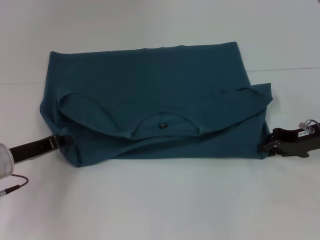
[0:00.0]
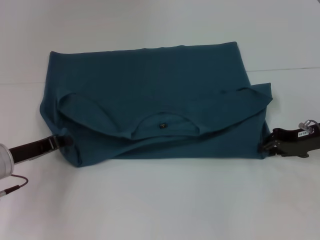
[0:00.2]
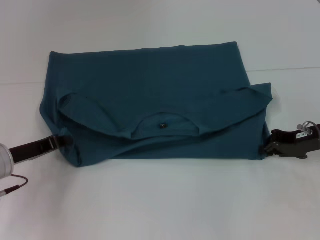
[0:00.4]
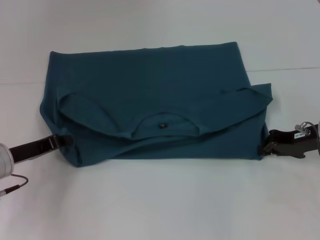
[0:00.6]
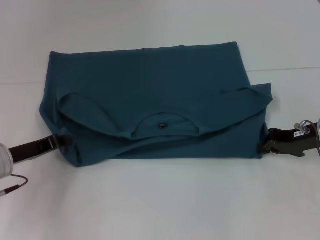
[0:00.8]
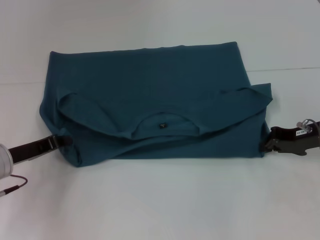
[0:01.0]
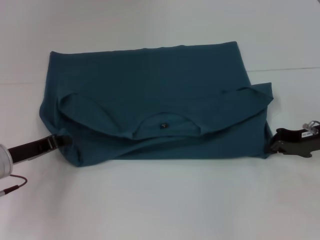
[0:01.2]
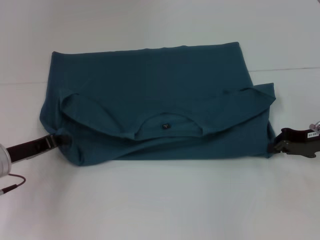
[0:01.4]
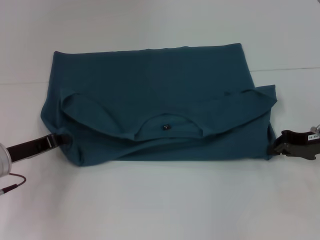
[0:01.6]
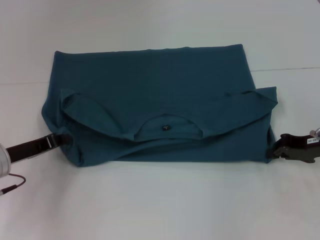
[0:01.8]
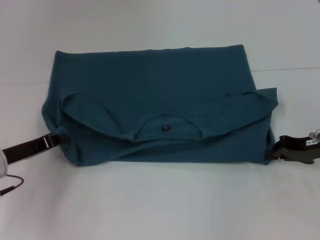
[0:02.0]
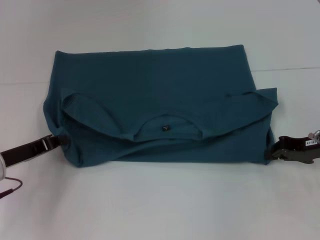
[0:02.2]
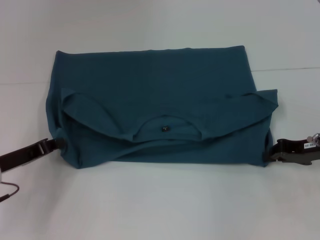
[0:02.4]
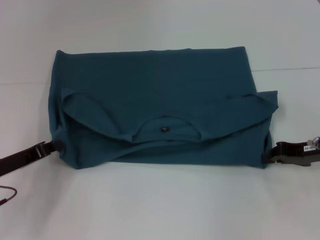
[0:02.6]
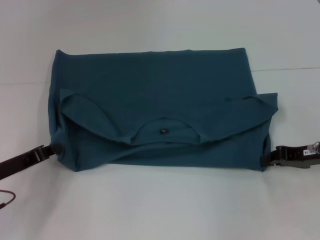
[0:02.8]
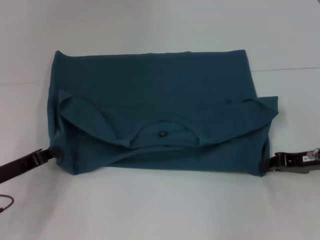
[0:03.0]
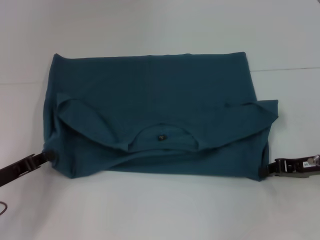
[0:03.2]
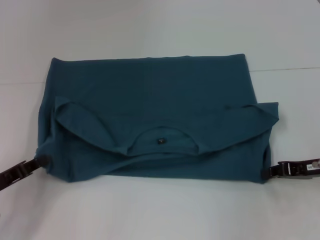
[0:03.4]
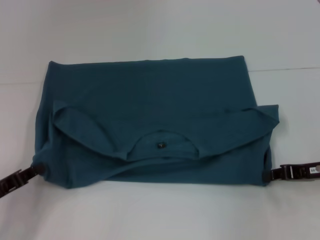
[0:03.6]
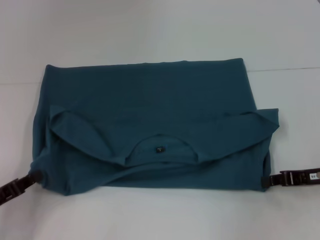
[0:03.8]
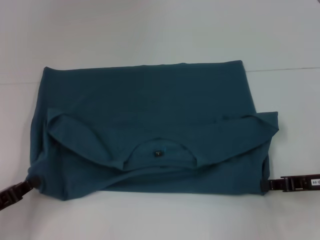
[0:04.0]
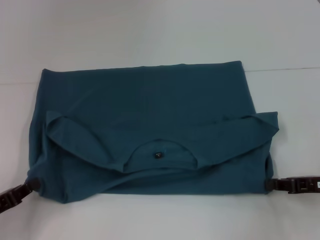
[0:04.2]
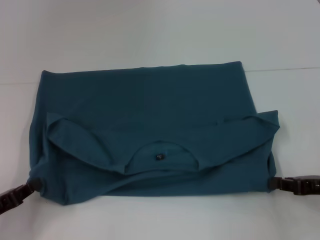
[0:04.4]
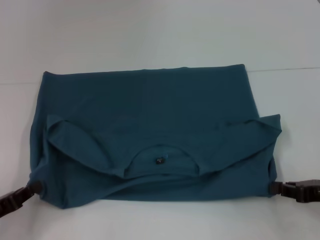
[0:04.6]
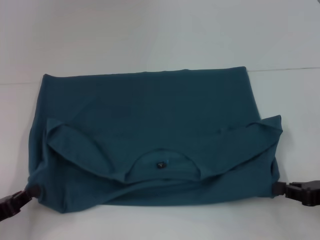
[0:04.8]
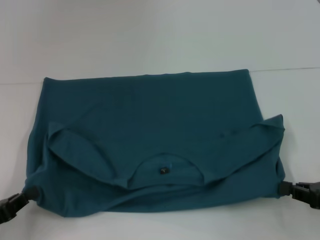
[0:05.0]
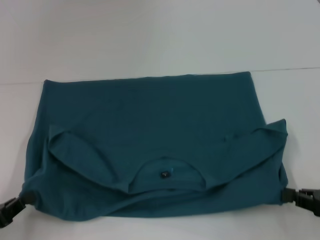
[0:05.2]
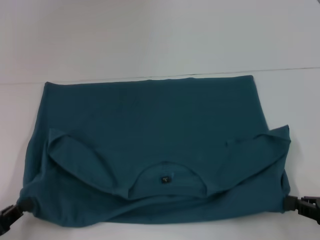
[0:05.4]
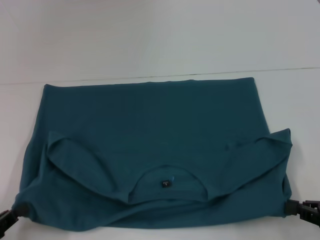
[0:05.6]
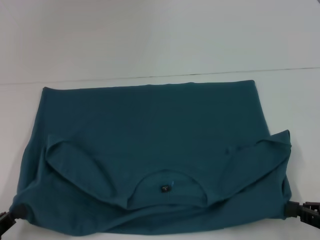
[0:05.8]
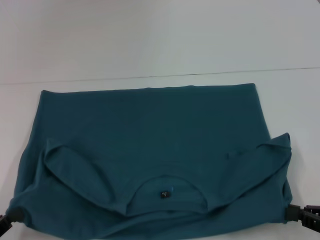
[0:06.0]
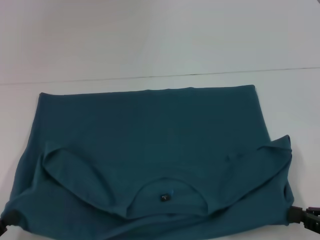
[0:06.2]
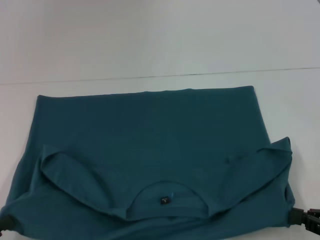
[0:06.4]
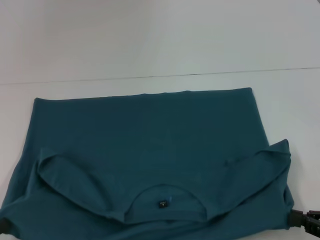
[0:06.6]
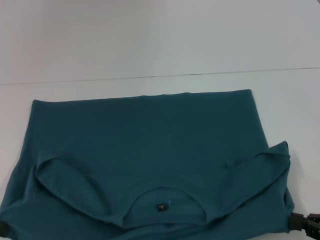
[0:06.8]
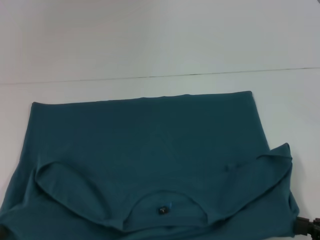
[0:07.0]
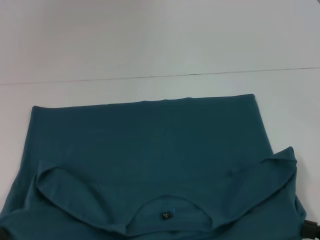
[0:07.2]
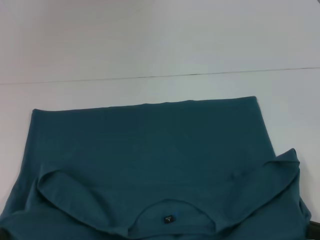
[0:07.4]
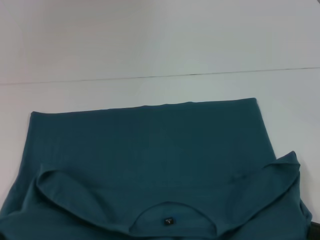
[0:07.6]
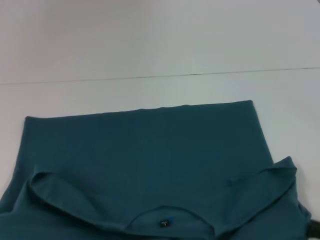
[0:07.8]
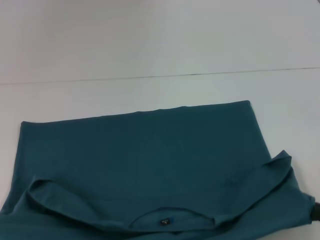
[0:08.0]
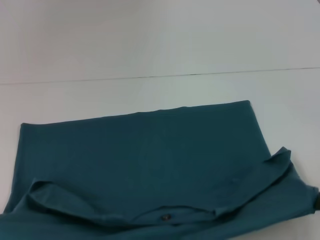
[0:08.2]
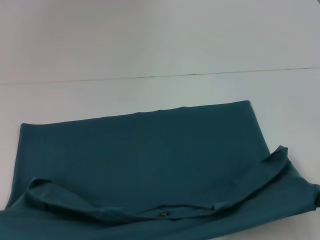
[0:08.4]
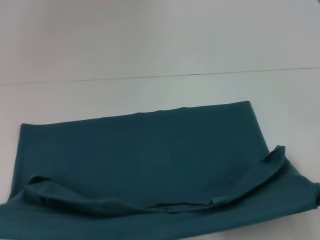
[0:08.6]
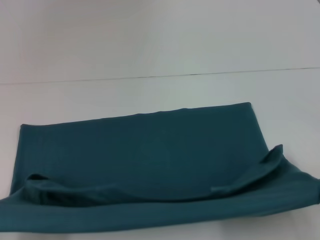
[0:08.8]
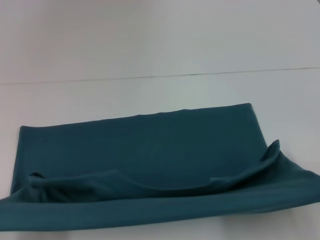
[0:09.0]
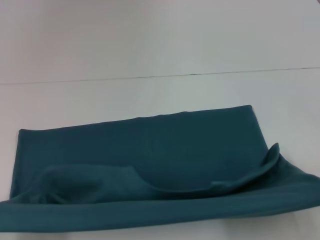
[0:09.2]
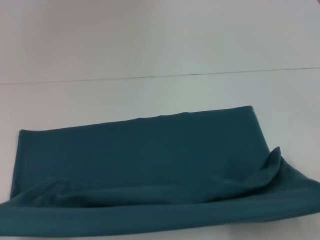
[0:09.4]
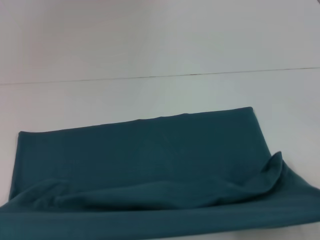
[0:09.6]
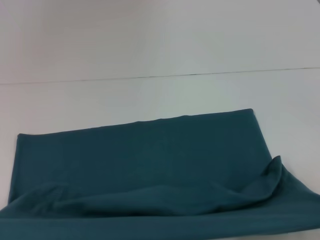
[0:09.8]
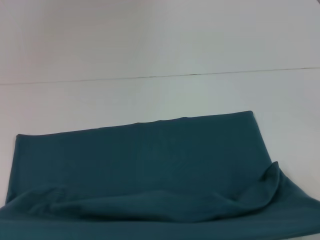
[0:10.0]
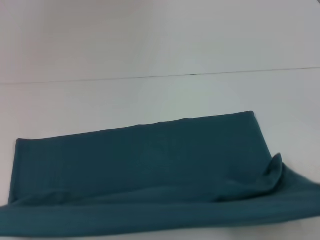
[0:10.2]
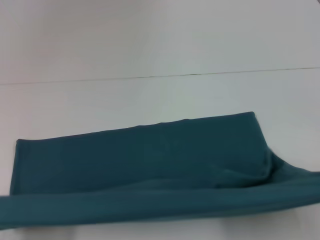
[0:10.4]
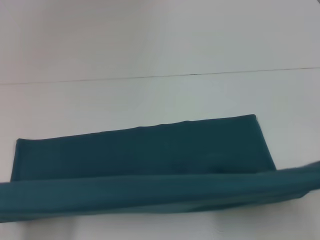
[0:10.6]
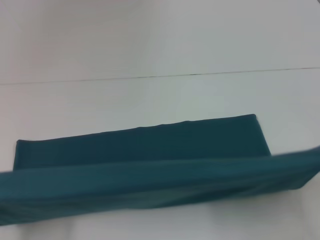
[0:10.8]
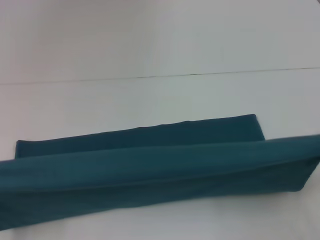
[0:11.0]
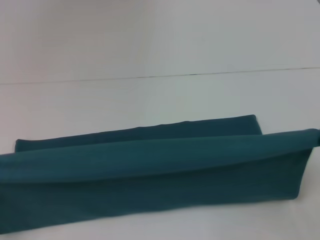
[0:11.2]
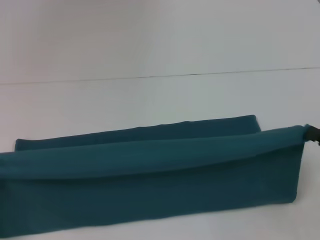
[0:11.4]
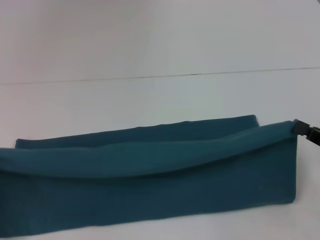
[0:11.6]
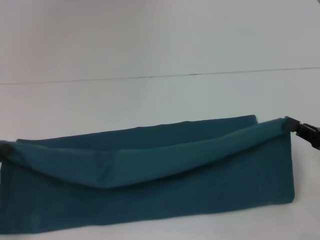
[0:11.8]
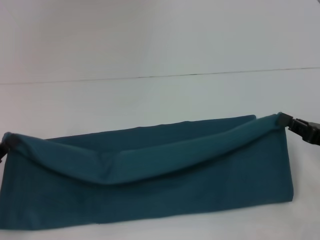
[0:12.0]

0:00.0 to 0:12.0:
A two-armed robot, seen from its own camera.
Step, 0:00.0 to 0:07.8: Pull the clothes with your left hand.
Step, 0:00.0 to 0:07.8: Pull the clothes with your right hand.
0:00.0 to 0:03.0: The grippers stay close to where they were, moving slightly.
0:03.0 to 0:04.4: Both grippers travel together backward, some 5 cm.
0:04.4 to 0:06.0: Both grippers move backward, approximately 5 cm.
0:06.0 to 0:07.6: The left gripper ends up roughly 5 cm from where it was.
0:07.6 to 0:10.4: The grippers move only a little.
0:10.4 to 0:12.0: The two grippers go some 15 cm forward.

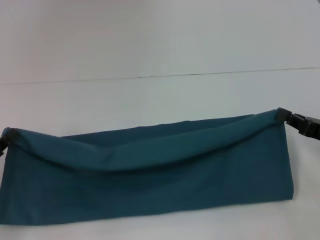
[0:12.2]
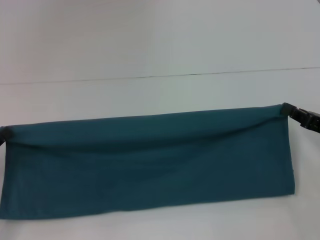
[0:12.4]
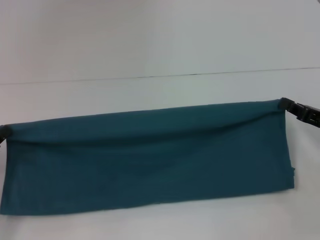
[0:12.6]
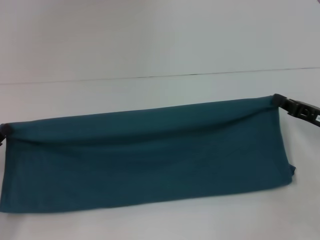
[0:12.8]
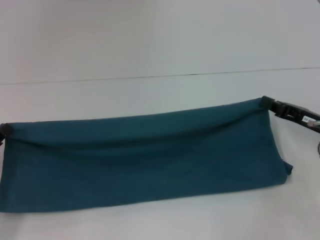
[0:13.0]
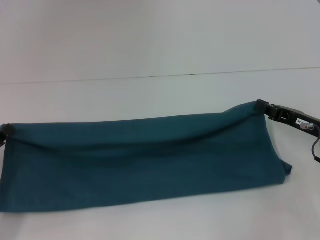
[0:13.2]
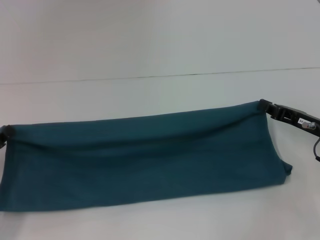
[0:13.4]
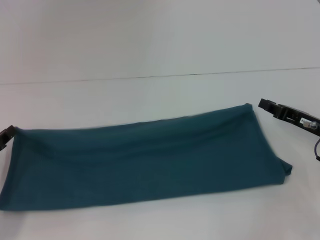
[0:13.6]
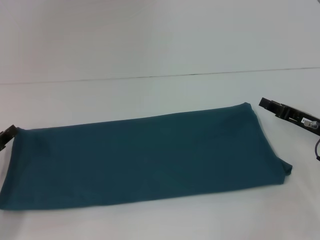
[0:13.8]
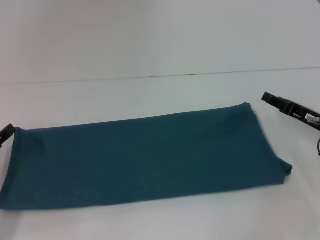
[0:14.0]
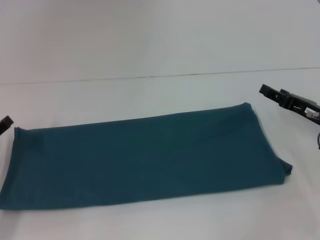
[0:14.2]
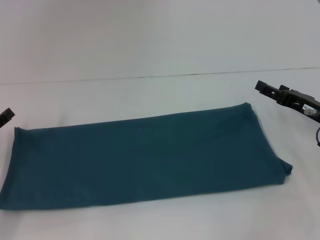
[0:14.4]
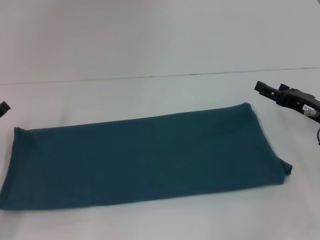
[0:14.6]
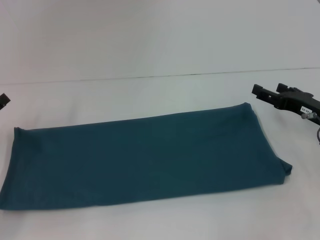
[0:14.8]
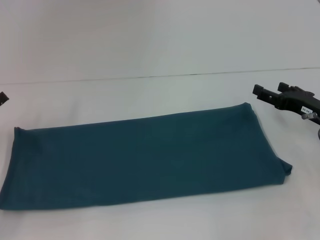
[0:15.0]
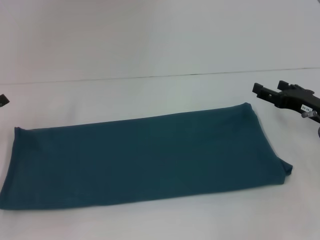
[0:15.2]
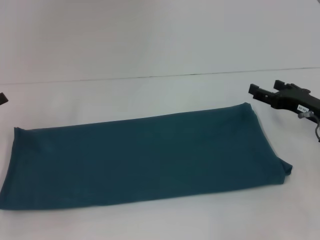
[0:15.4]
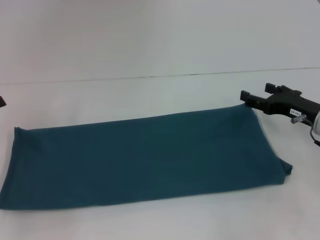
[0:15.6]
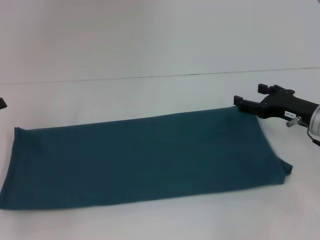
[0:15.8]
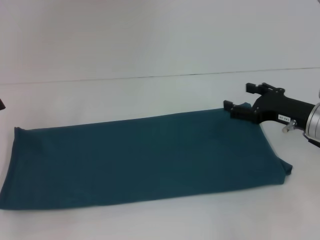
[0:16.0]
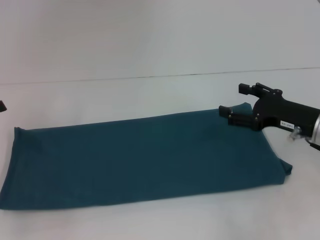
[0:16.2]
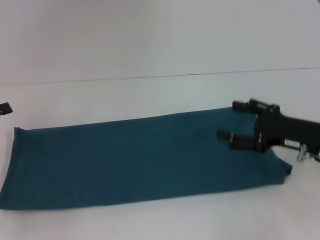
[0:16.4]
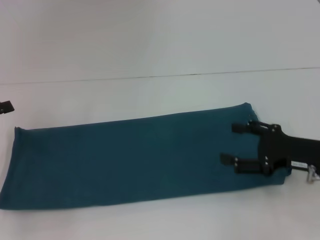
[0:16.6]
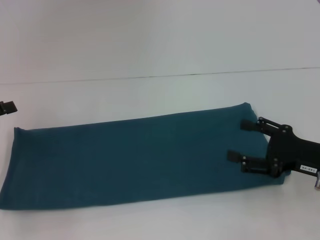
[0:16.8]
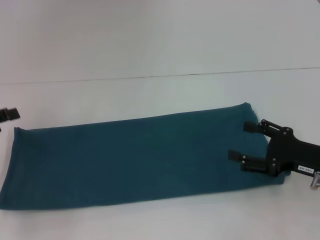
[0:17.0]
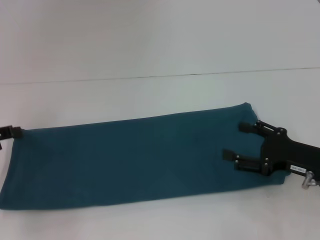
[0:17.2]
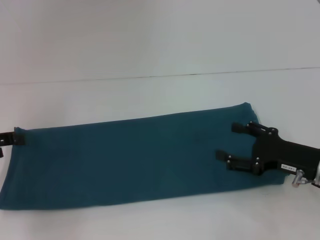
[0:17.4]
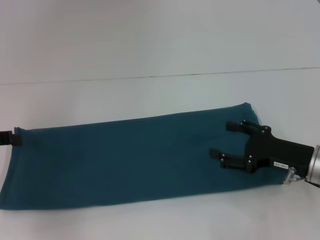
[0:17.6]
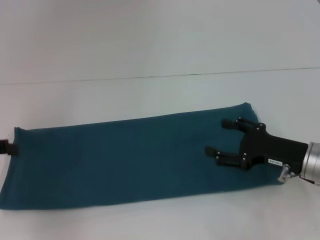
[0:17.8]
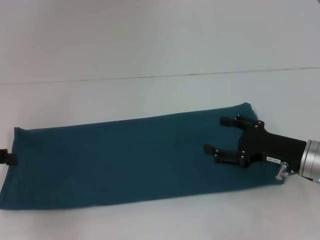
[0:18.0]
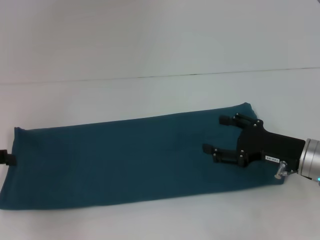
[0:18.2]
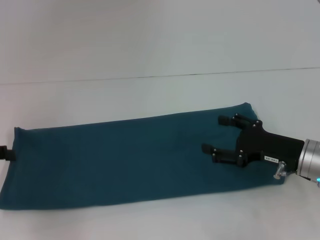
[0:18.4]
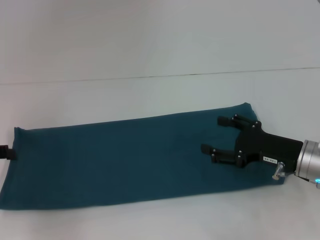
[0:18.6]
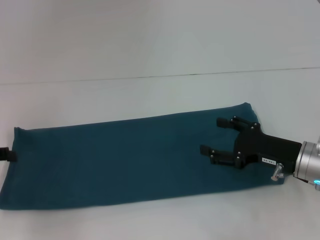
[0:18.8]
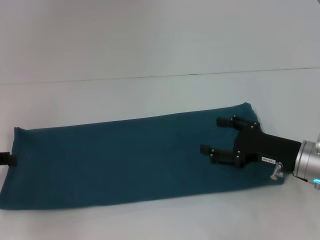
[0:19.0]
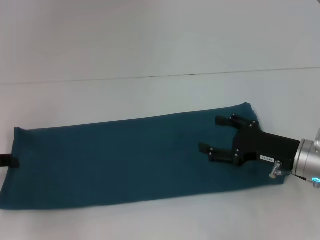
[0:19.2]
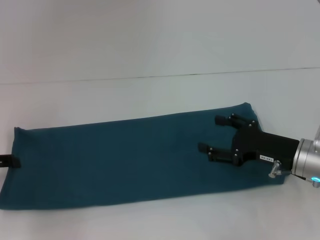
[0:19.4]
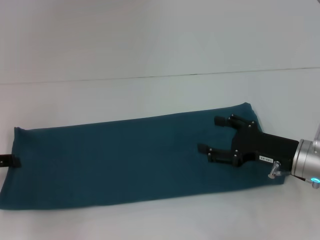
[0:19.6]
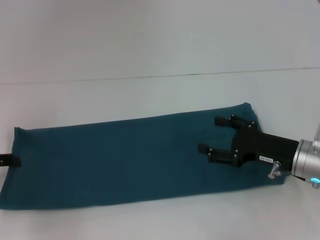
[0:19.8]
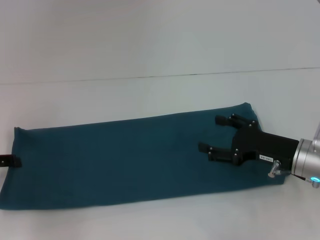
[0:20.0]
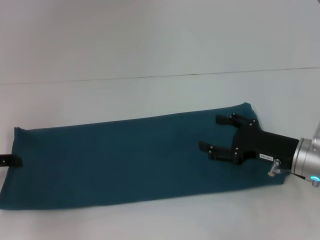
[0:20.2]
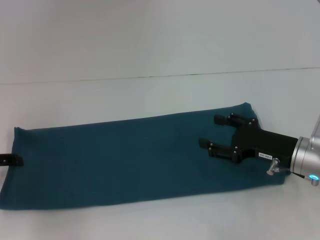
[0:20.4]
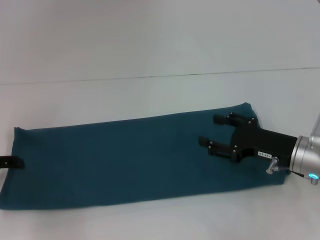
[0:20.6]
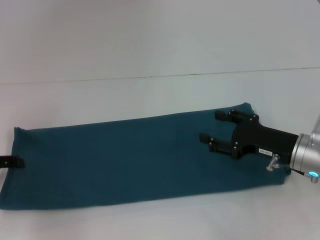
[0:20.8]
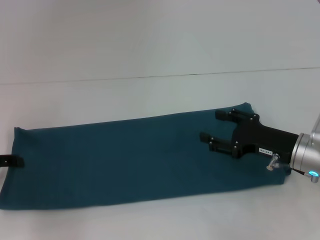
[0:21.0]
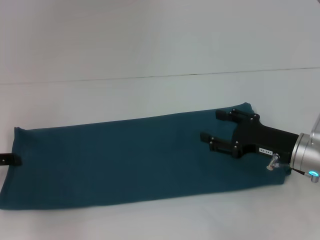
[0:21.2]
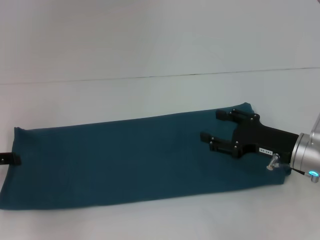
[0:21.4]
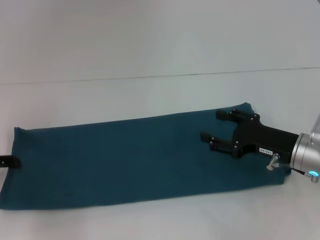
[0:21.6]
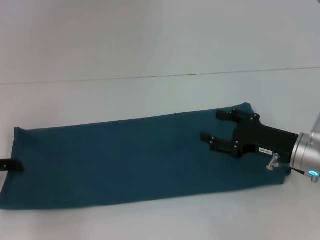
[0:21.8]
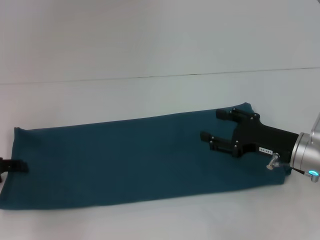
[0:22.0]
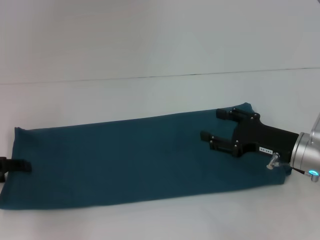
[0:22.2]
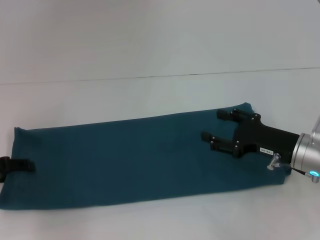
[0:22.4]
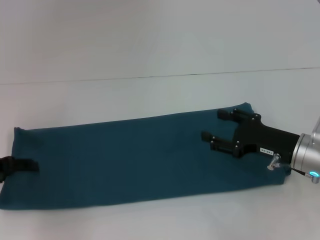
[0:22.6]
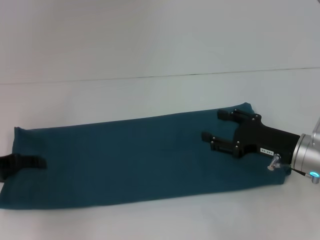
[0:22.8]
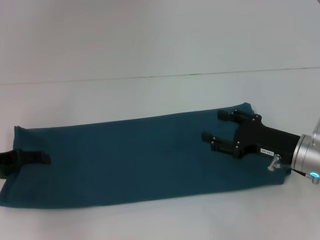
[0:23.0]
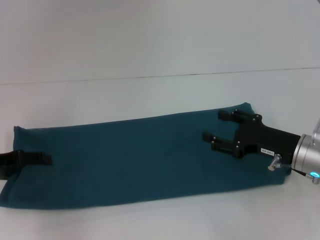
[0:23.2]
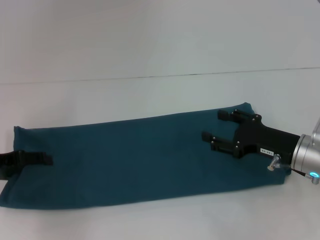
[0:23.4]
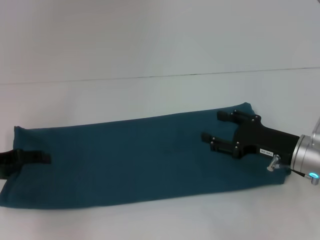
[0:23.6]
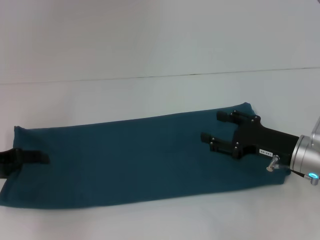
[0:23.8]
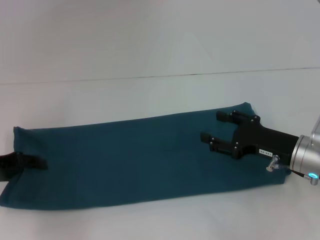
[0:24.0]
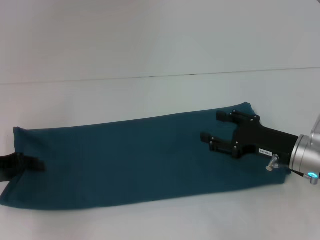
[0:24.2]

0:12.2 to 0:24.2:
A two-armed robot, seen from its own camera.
0:12.2 to 0:13.8: The right gripper is displaced forward by about 5 cm.
0:13.8 to 0:15.2: The right gripper opens its fingers.
0:15.2 to 0:16.6: The right gripper shifts roughly 5 cm backward.
0:19.8 to 0:21.2: Both grippers stay about where they are.
0:22.6 to 0:24.2: The grippers make only small movements.
